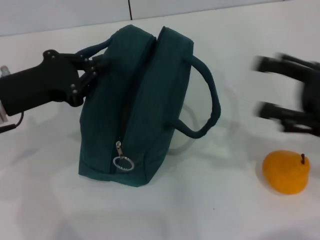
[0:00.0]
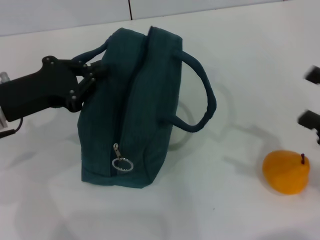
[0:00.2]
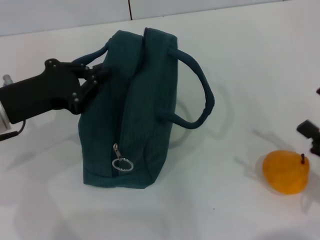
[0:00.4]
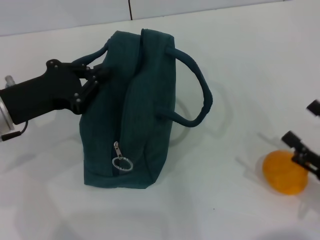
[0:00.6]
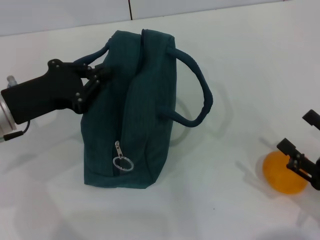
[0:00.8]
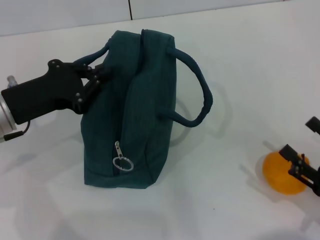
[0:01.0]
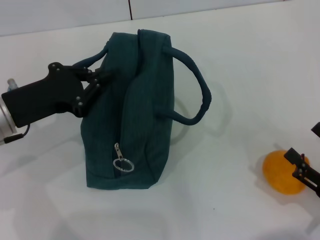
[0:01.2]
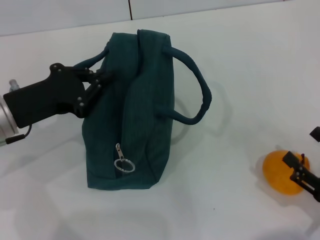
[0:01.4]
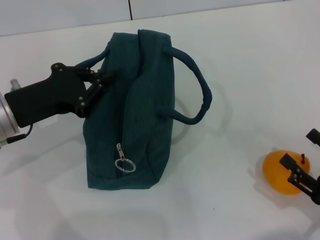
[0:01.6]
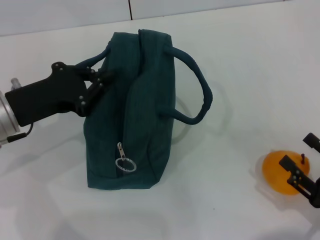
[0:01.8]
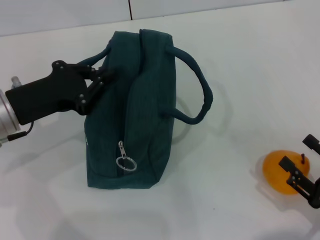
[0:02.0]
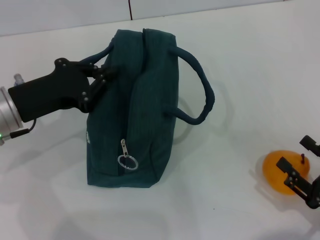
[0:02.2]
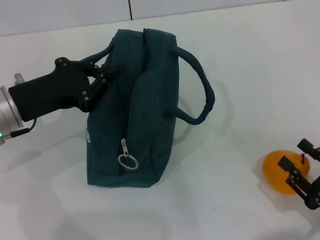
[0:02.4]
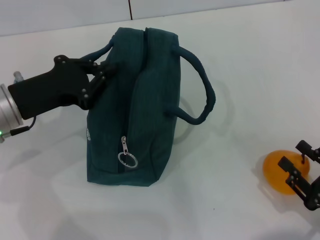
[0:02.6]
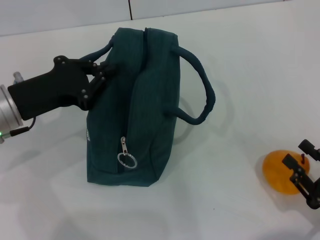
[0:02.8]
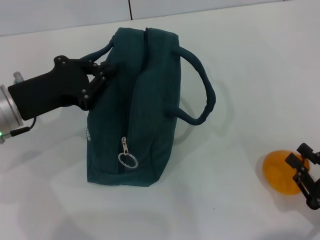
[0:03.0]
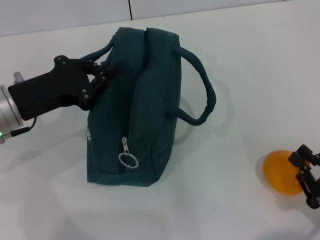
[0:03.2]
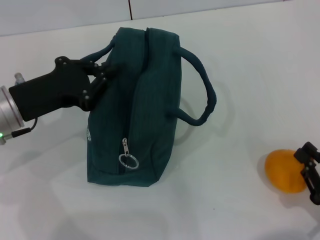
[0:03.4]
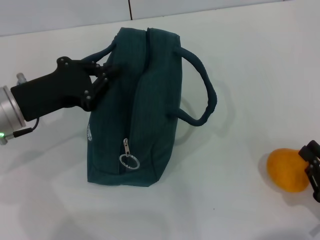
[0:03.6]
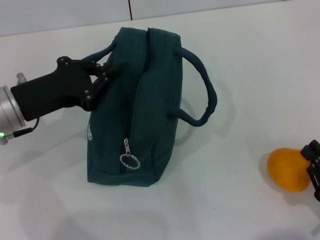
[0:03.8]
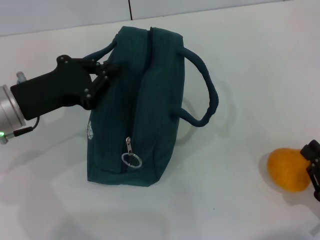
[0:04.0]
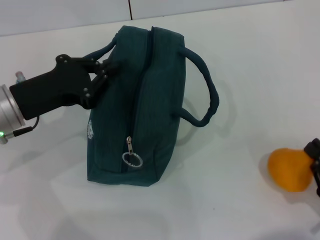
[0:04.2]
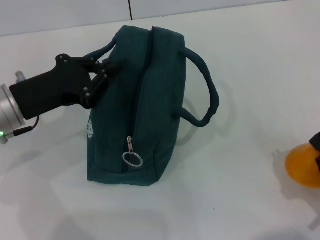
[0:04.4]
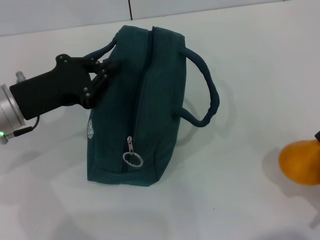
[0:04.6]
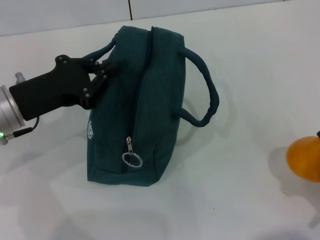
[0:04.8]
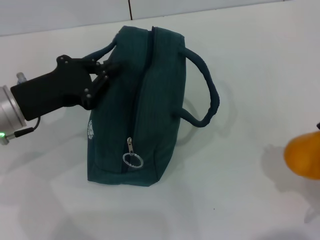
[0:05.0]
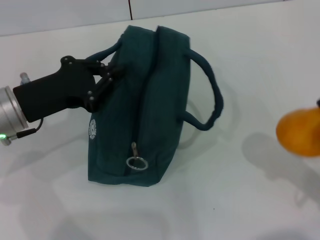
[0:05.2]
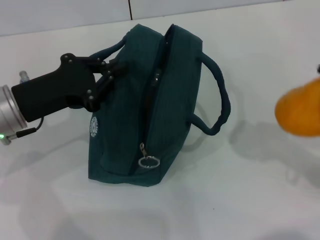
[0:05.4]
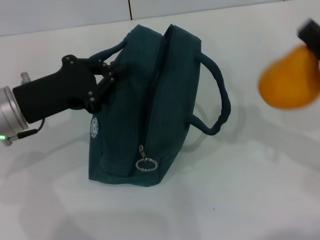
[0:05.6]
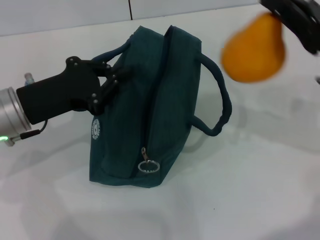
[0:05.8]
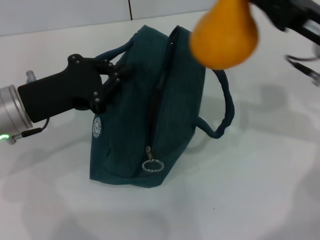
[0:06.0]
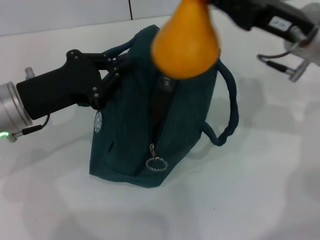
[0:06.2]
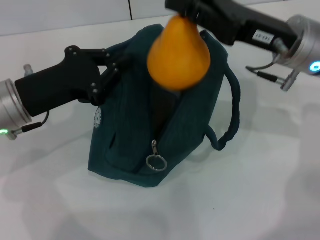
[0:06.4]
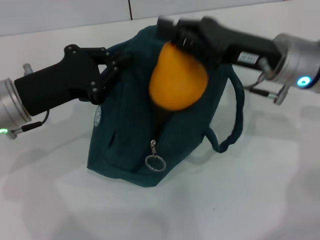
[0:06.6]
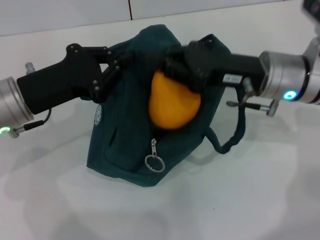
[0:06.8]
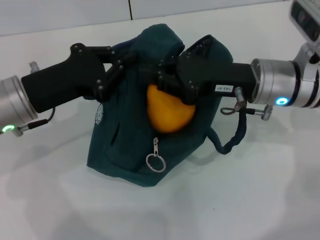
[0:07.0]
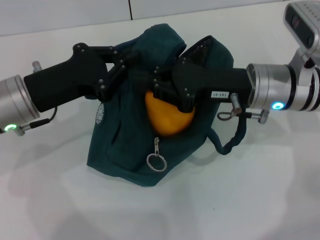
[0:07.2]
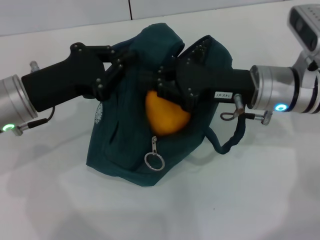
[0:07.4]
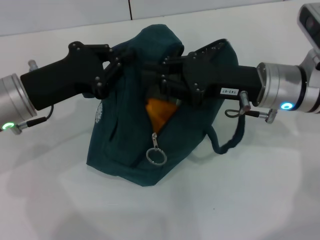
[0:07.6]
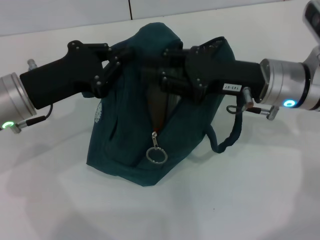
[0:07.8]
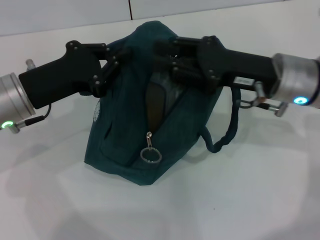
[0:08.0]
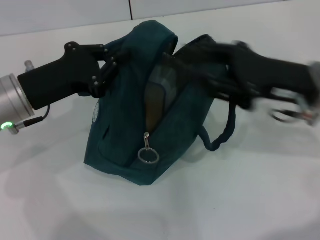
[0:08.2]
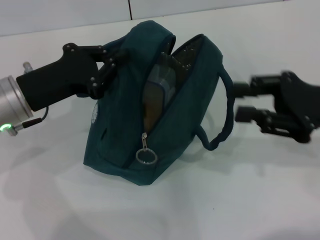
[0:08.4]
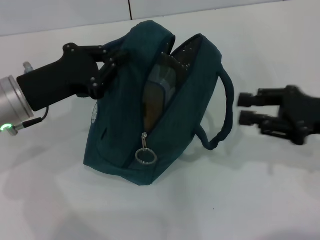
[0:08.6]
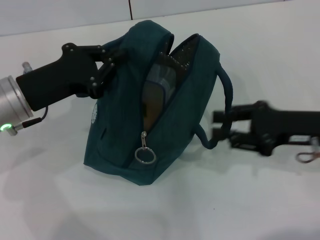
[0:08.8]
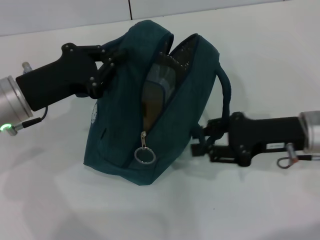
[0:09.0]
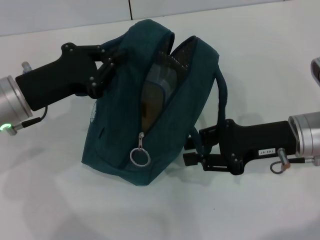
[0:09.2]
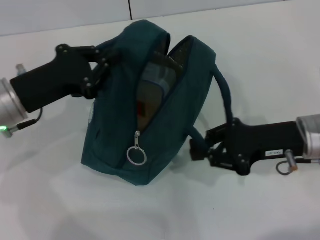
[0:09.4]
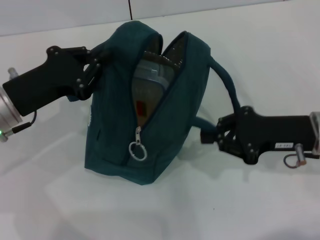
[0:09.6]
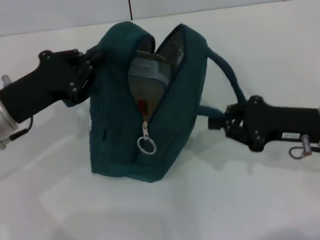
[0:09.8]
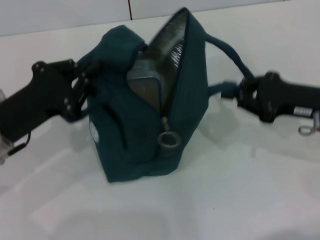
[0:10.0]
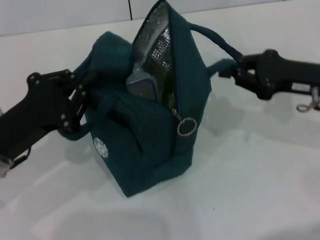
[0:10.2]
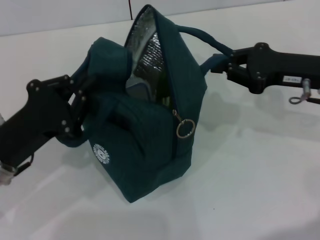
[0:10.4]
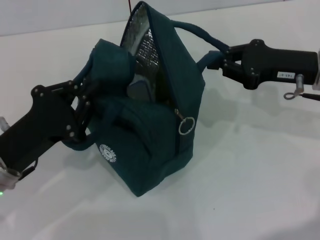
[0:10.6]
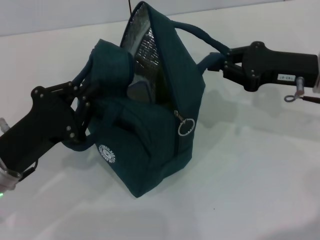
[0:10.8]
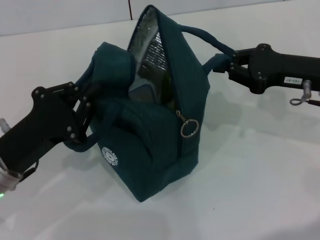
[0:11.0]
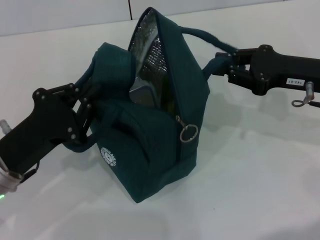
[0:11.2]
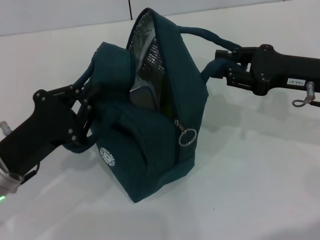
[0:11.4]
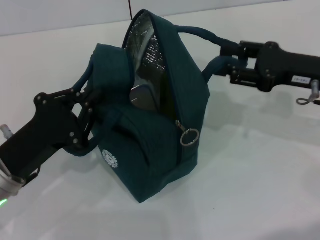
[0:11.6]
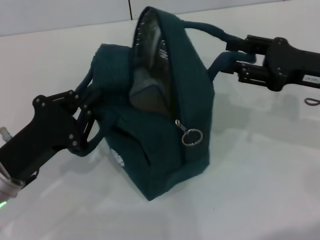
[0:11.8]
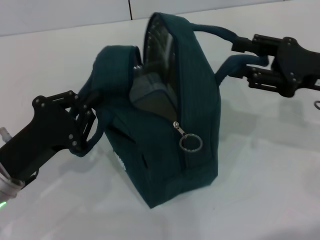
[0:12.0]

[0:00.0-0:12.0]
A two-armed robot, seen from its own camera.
Step, 0:00.0 to 0:03.4: Grab the pear with your right hand.
Step, 0:08.8 to 0:11.6: Hold the lunch bag with your right hand.
0:00.0 to 0:01.6: The right gripper shifts some 20 cm backward and downward.
0:01.6 to 0:03.0: The right gripper closes up.
0:03.0 to 0:04.4: The right gripper closes.
0:04.4 to 0:06.0: The right gripper moves forward and upward, approximately 25 cm.
0:06.0 to 0:07.6: The right gripper goes roughly 5 cm to the left.
0:07.6 to 0:09.0: The right gripper shifts about 5 cm to the right, and opens up.
0:09.0 to 0:10.4: The left gripper moves backward, approximately 5 cm; the right gripper changes place by approximately 5 cm.
0:10.4 to 0:12.0: The right gripper opens its fingers.

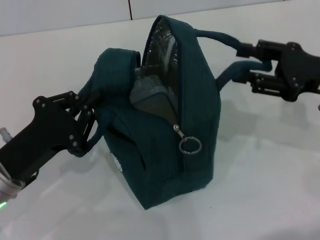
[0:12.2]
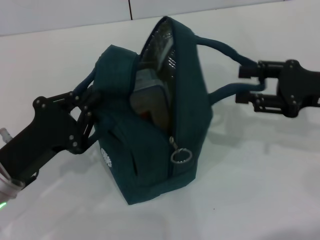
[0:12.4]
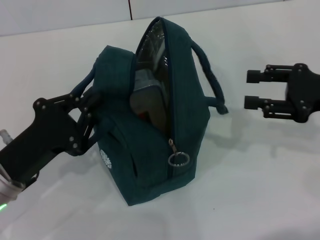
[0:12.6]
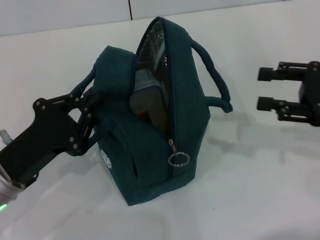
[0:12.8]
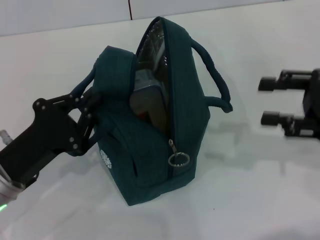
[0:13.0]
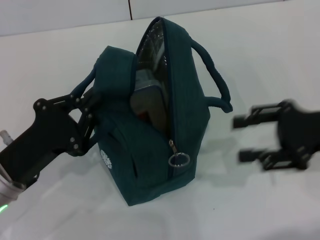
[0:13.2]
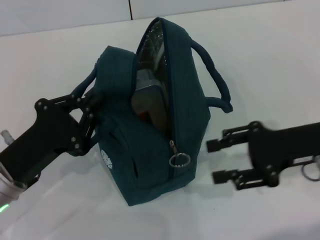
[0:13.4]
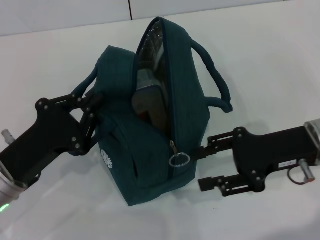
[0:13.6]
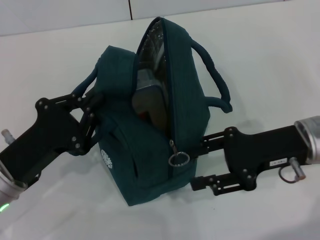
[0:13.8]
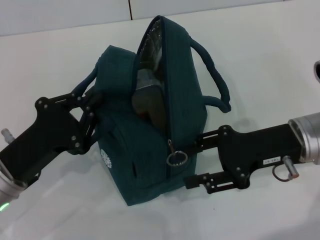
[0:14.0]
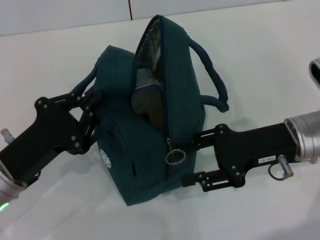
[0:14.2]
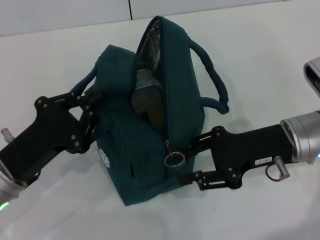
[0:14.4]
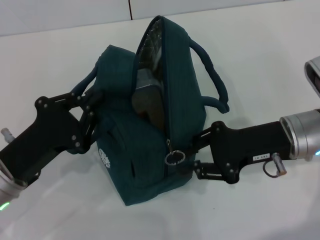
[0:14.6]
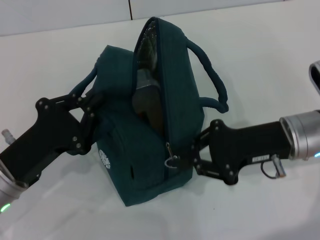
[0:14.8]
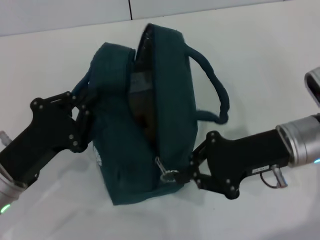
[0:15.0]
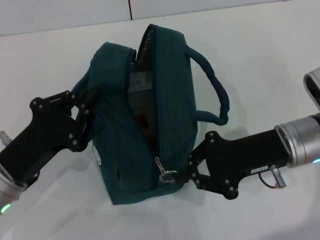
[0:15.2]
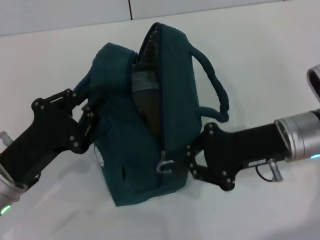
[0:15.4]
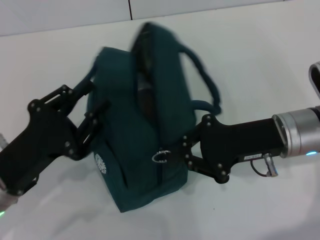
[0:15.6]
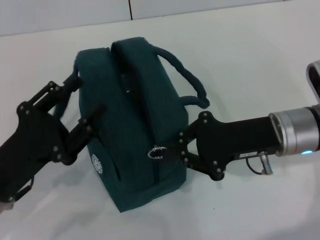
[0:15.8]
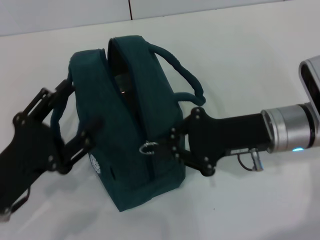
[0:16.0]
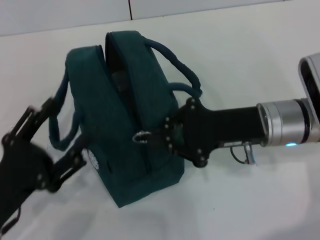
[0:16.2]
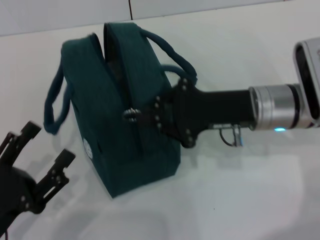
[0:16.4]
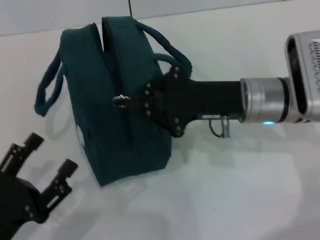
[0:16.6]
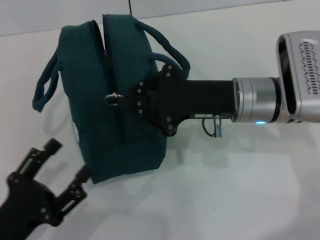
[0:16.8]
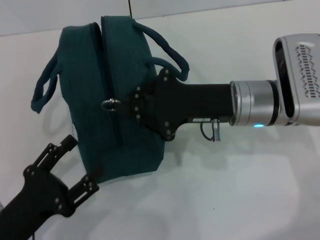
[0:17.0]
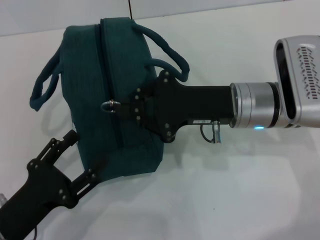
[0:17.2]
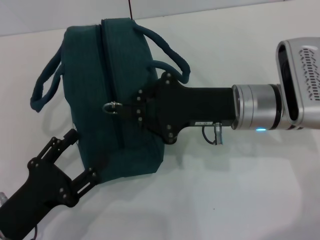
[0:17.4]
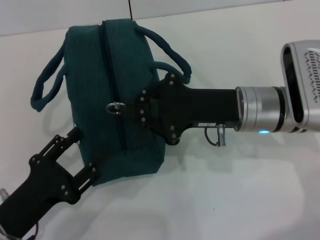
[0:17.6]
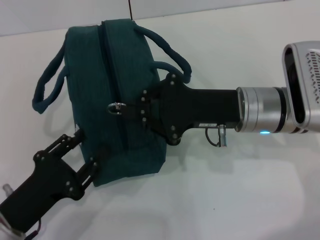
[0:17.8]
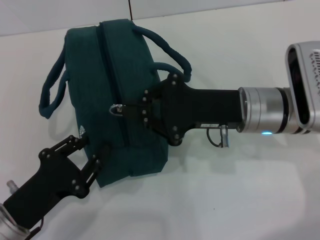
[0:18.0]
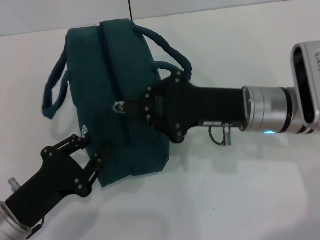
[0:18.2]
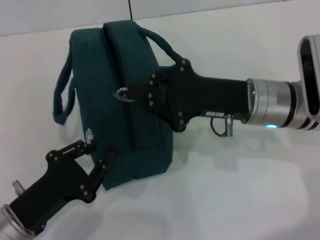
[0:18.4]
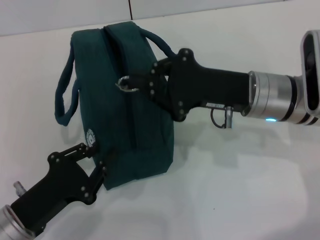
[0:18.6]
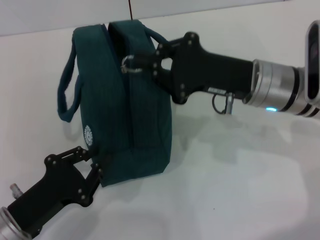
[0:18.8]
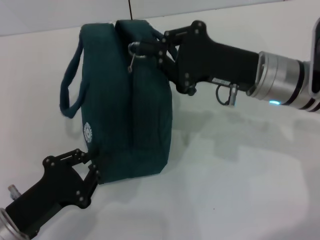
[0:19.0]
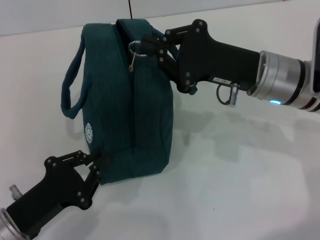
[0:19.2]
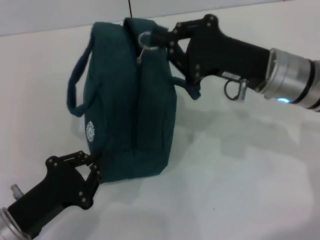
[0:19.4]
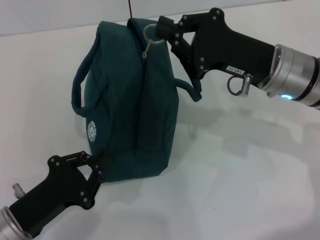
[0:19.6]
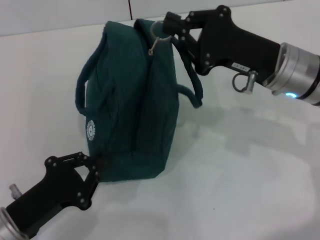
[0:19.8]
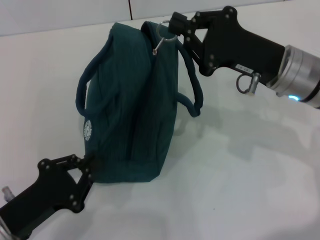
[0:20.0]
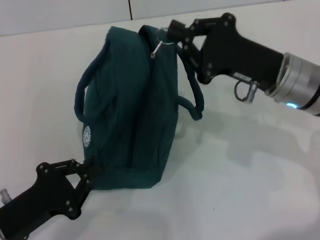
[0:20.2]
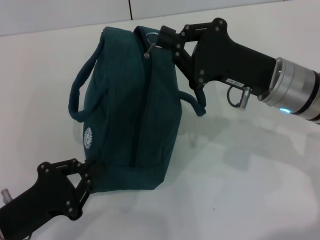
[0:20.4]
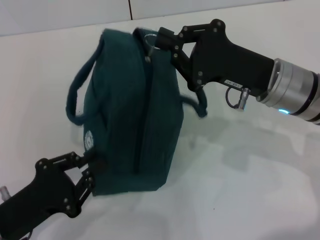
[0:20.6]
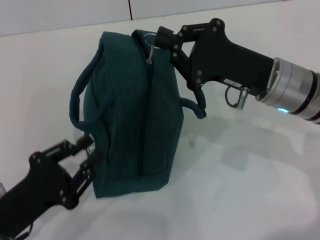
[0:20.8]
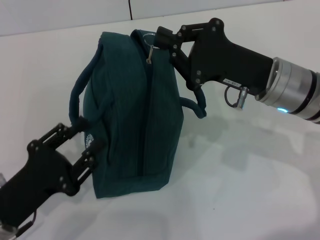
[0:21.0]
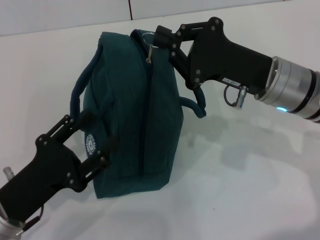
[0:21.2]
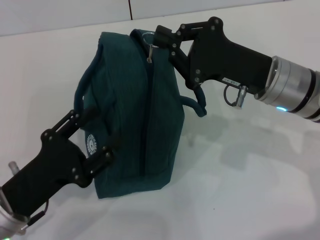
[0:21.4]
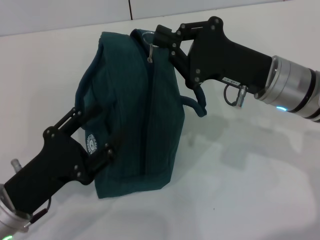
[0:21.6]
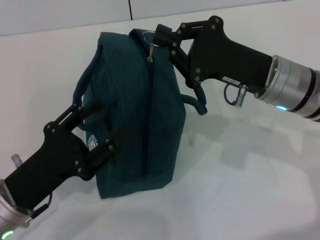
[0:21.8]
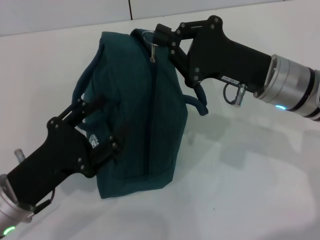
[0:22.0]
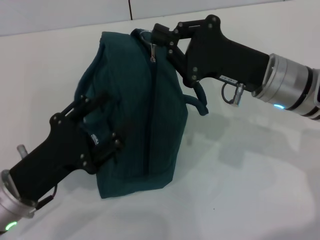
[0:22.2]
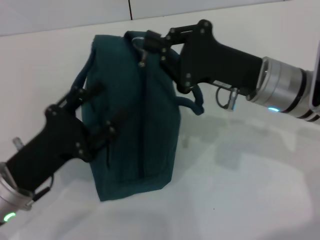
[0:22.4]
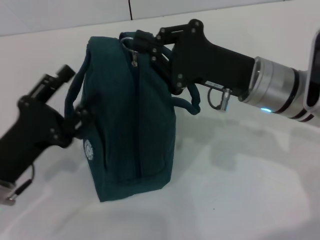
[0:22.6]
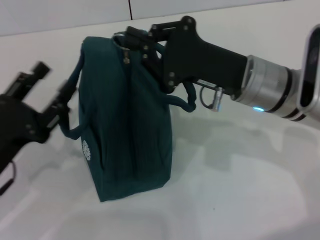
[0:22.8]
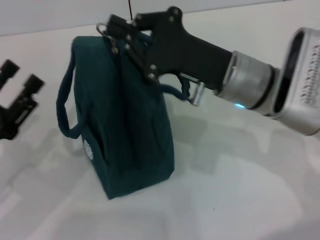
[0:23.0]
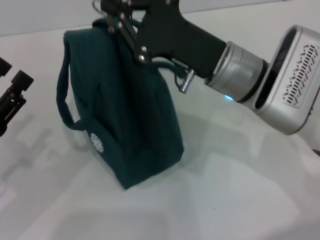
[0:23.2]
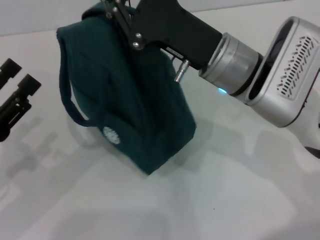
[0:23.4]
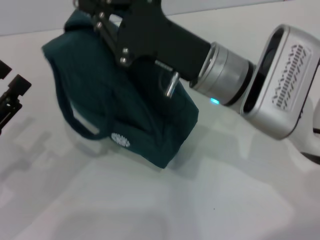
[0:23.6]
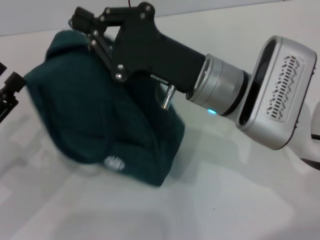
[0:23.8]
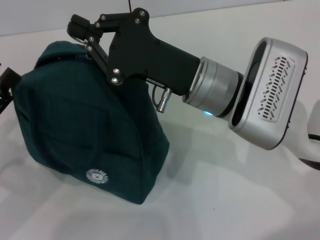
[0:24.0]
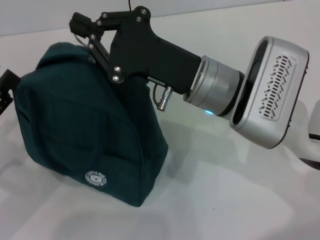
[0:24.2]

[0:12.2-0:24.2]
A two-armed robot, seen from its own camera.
Step, 0:12.2 to 0:15.8: Hold the lunch bag with your left hand.
0:12.2 to 0:13.8: The right gripper shifts some 5 cm to the left.
0:13.8 to 0:15.2: The right gripper closes.
0:15.2 to 0:16.6: The left gripper heads backward, covering roughly 10 cm, and opens up; the right gripper changes place by approximately 5 cm.
0:16.6 to 0:18.2: The left gripper moves some 5 cm, and closes.
0:18.2 to 0:19.8: The left gripper closes its fingers.
0:19.8 to 0:21.2: The left gripper opens its fingers.
0:22.6 to 0:24.2: Both grippers move to the left, roughly 5 cm.
